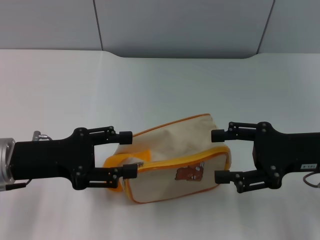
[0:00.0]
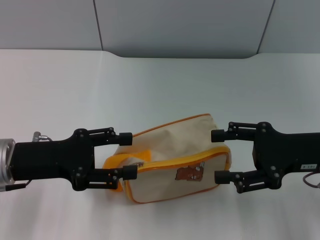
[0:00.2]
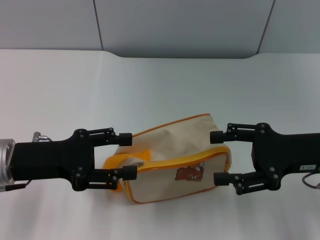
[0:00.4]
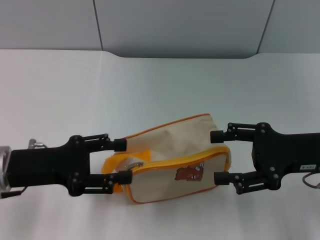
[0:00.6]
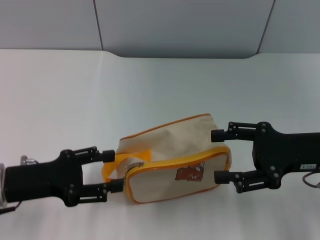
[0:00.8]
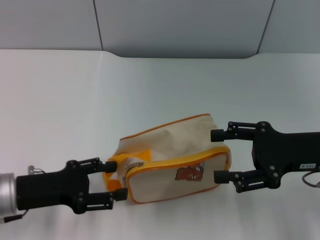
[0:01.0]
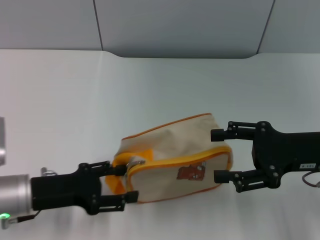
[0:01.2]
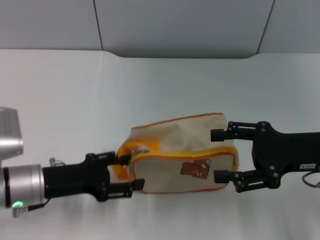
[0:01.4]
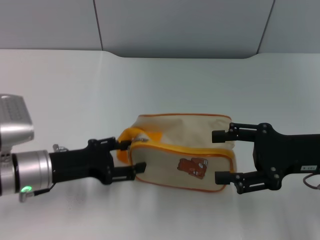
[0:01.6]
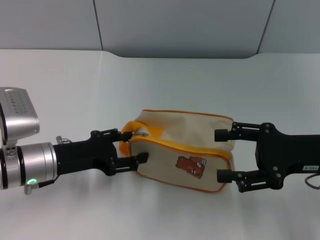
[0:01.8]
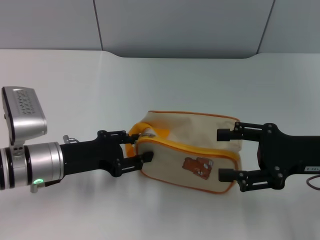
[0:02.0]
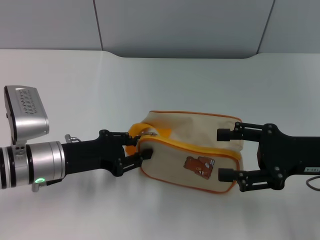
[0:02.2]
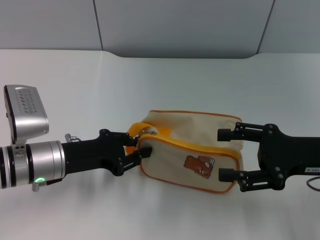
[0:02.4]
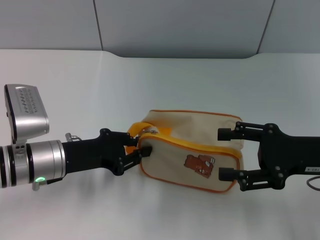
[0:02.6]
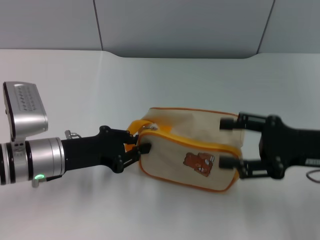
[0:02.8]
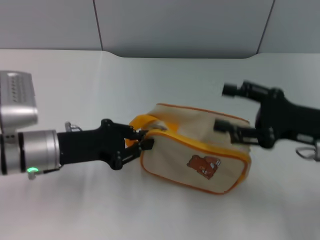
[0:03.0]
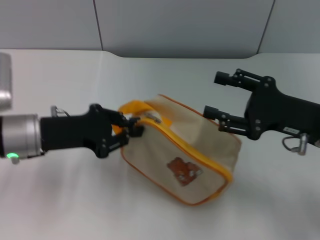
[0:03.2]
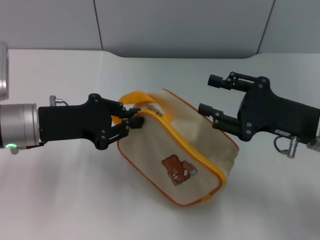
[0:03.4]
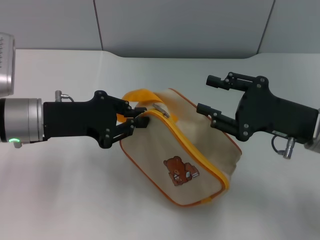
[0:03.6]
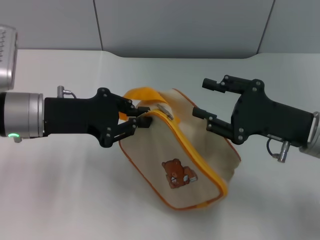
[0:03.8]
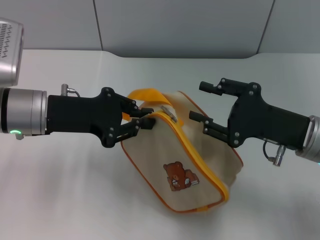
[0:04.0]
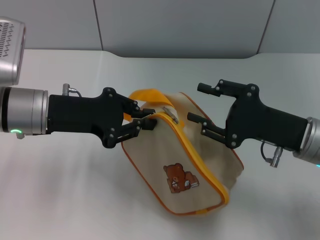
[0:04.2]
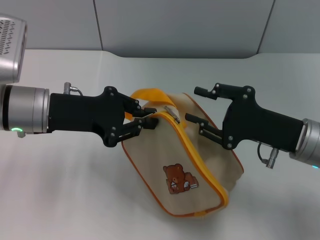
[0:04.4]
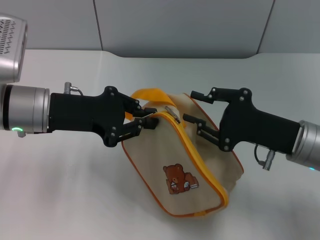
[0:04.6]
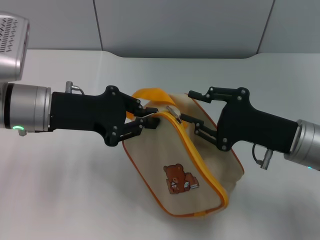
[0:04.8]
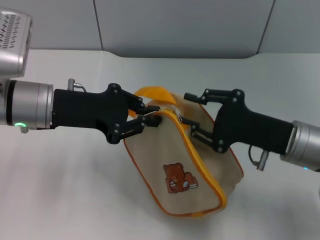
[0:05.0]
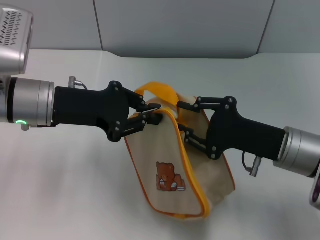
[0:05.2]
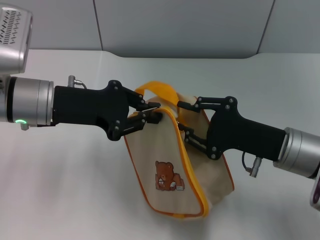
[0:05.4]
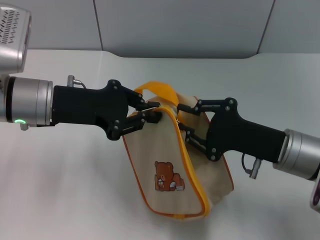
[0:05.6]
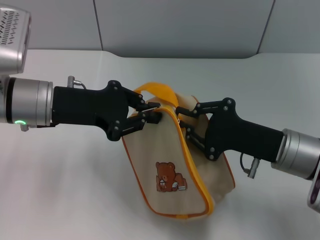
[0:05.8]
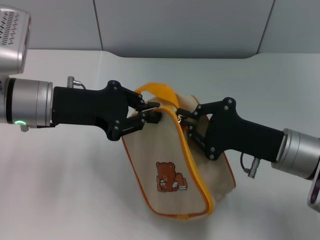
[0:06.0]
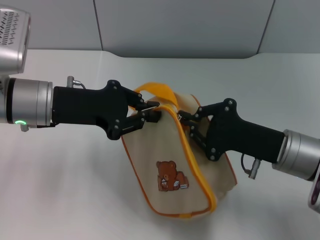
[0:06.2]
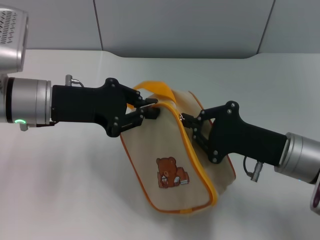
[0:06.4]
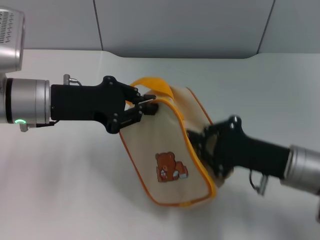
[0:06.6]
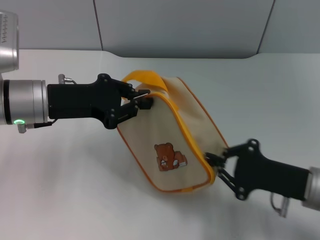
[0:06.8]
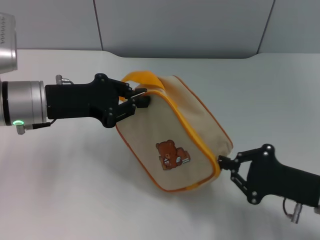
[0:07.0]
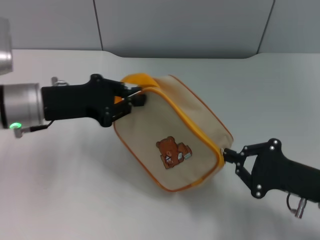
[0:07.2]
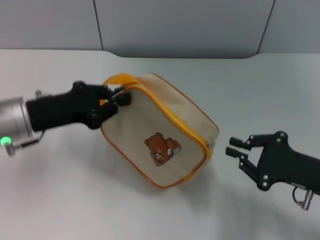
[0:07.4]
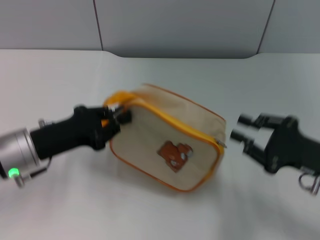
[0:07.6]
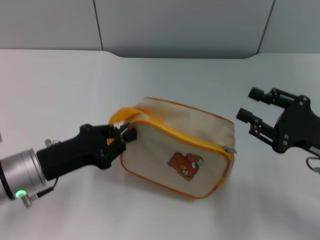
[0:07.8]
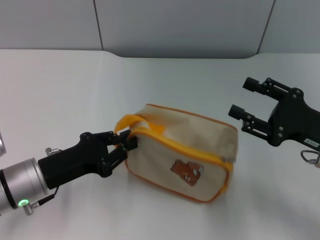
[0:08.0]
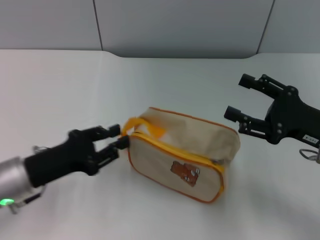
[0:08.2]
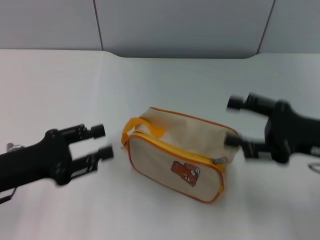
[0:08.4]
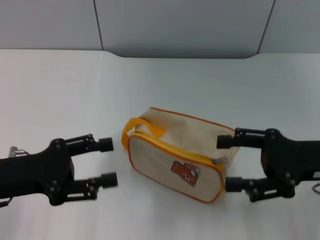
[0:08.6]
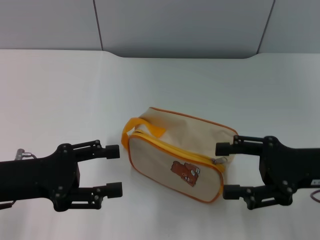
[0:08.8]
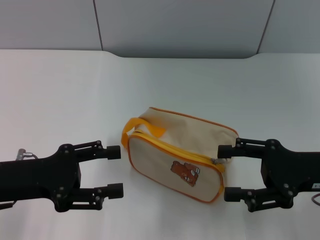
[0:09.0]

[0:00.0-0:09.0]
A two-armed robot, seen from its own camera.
Step, 0:00.0 to 0:03.2: Pick up the bag with left gripper.
Step, 0:03.4 to 0:07.2: Unzip the zipper of bag with right gripper.
Step, 0:07.6 to 0:08.2: Place the bag on the table with left gripper.
0:00.0 to 0:01.6: The left gripper is displaced downward by roughly 5 cm.
0:01.6 to 0:03.0: The left gripper closes.
0:03.0 to 0:04.4: The left gripper shifts about 5 cm upward. Meanwhile the right gripper closes its fingers.
0:04.4 to 0:06.0: The right gripper closes.
0:06.0 to 0:07.6: The right gripper shifts roughly 10 cm to the right; the left gripper moves downward and backward, about 10 cm.
0:07.6 to 0:09.0: The right gripper opens. The left gripper changes place by approximately 5 cm, and opens its fingers.
